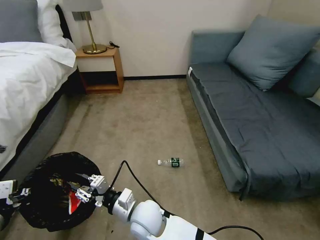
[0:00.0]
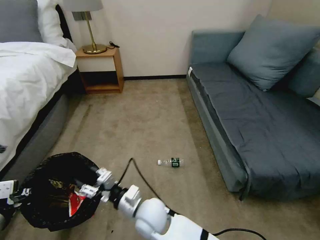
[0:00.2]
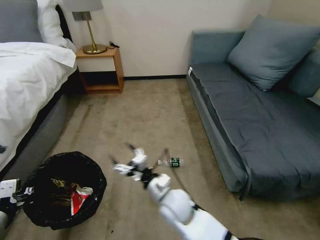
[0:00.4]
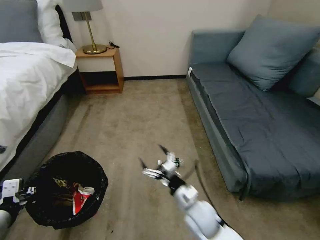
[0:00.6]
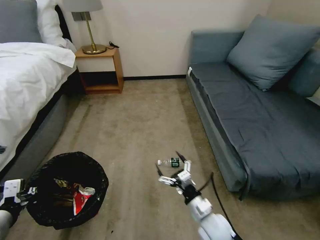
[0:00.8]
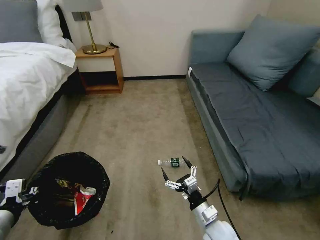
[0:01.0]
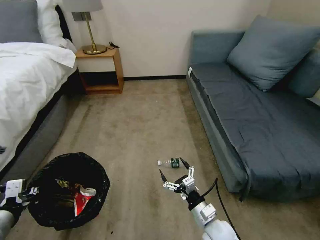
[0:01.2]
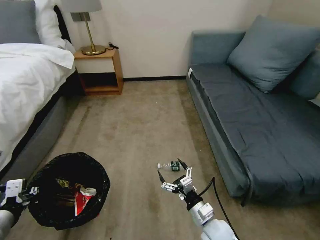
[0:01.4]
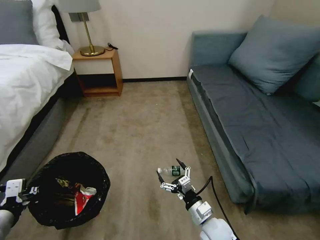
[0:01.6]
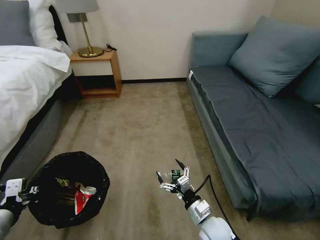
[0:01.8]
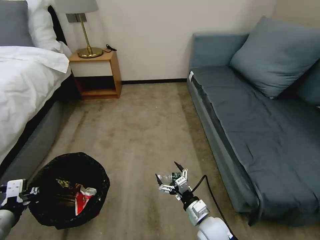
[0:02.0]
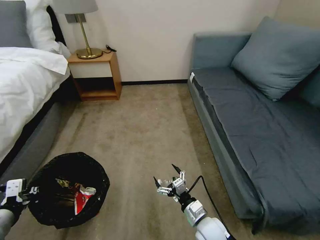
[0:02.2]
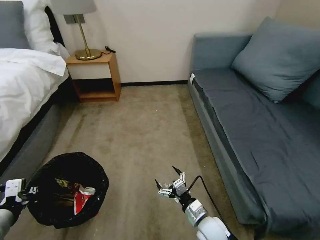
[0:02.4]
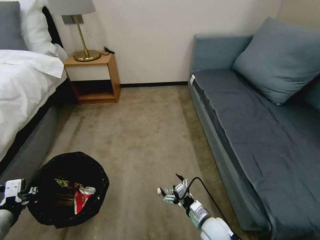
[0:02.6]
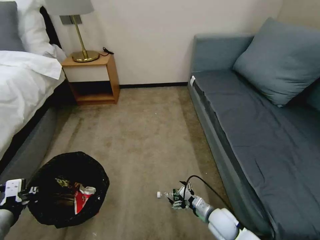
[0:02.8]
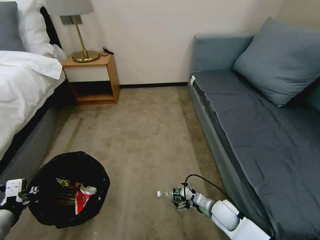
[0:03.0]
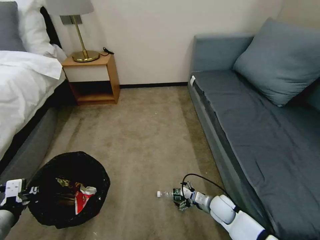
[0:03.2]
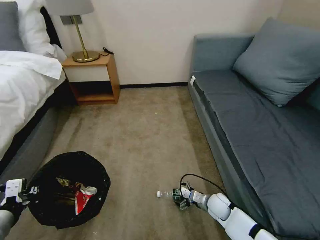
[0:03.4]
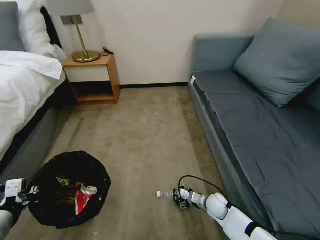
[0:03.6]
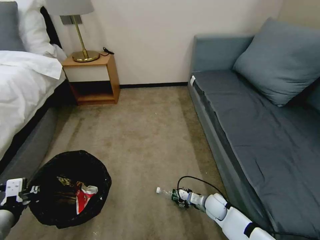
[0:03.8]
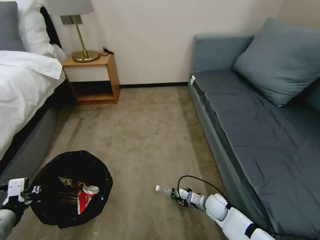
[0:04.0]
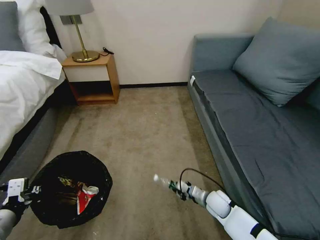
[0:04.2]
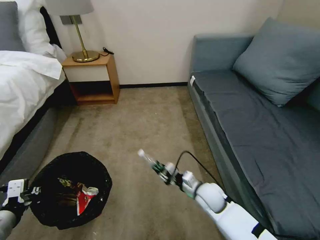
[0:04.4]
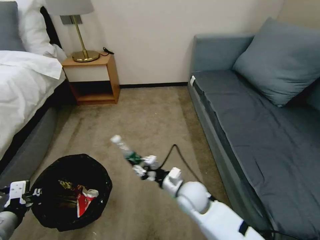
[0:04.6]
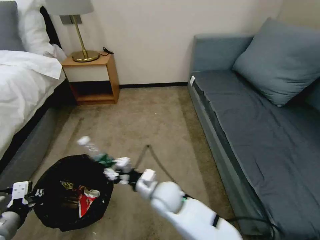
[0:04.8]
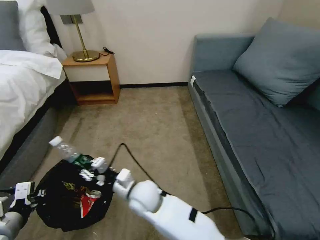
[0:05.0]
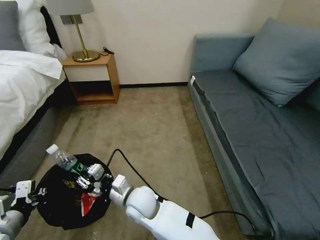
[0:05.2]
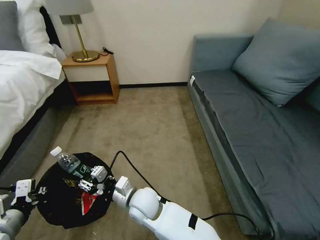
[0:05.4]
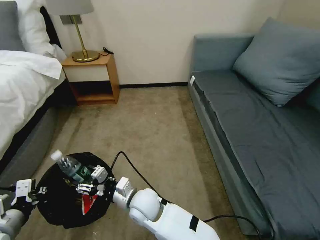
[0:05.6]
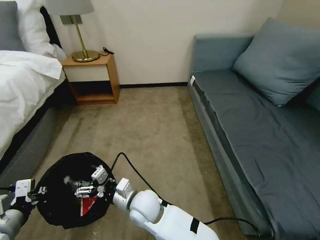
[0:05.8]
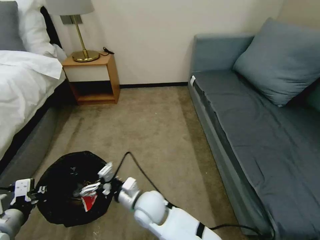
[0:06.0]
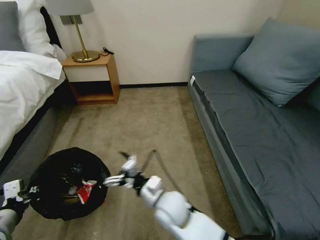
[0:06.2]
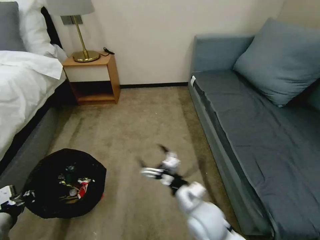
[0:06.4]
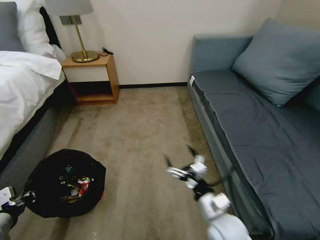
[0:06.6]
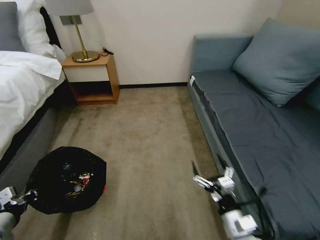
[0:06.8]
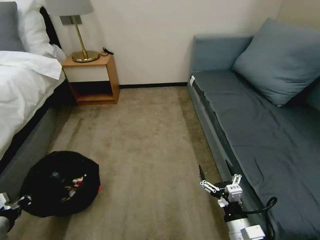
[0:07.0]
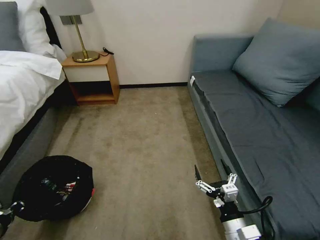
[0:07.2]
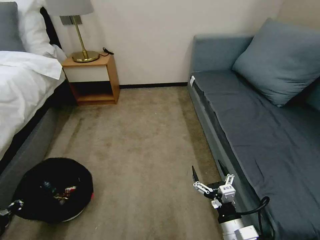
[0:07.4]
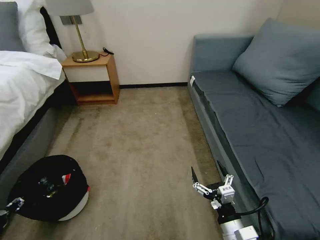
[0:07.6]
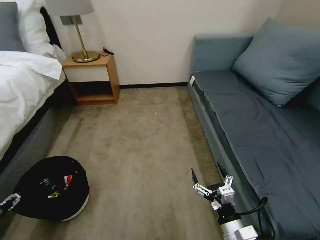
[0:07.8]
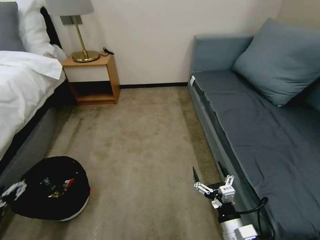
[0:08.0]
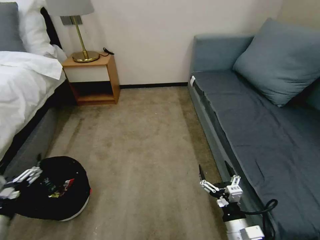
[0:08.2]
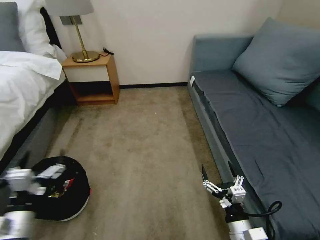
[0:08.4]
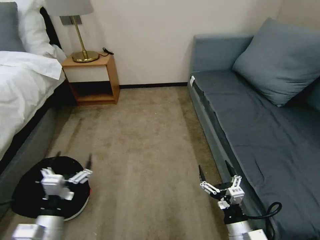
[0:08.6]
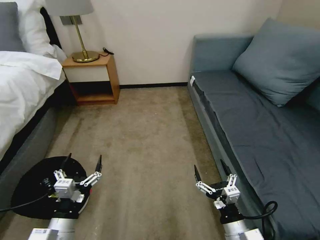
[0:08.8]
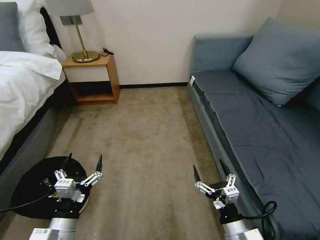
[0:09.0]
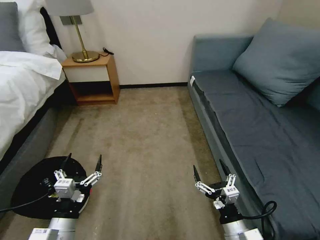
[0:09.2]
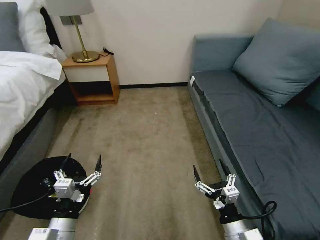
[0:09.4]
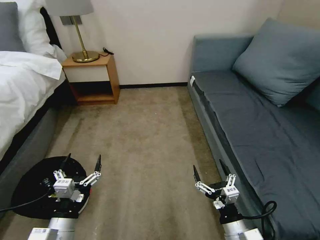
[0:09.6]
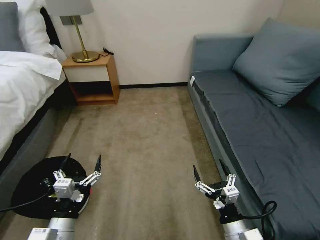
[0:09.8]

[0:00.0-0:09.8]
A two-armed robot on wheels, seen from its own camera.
Task of the whole recording: Pick up the trash bin, then pick up the garbage on the floor and place it into the trash bin.
0:00.0 to 0:01.4: The right gripper is displaced to the right by some 25 cm, and opens its fingers.
0:01.4 to 0:02.8: The right gripper shifts by about 5 cm.
0:02.8 to 0:04.2: The right gripper moves forward, roughly 10 cm, and closes up.
0:04.2 to 0:05.6: The right gripper heads to the left and upward, covering roughly 30 cm, and opens its fingers.
0:05.6 to 0:07.0: The right gripper heads to the right and backward, covering roughly 35 cm, and opens up, while the left gripper heads to the left and downward, covering about 10 cm.
0:07.0 to 0:08.4: The left gripper is displaced to the right by about 15 cm, and opens up.
0:08.4 to 0:09.8: The left gripper heads to the right and downward, covering about 10 cm.

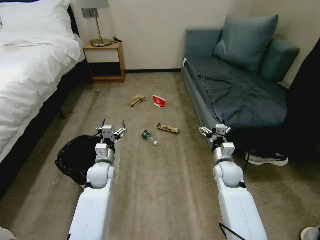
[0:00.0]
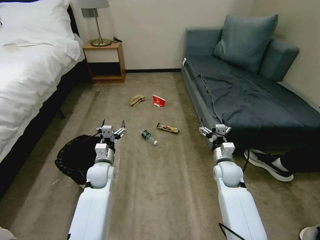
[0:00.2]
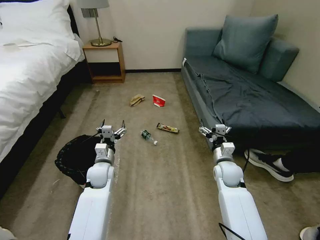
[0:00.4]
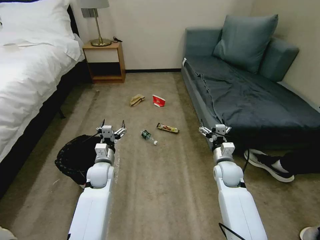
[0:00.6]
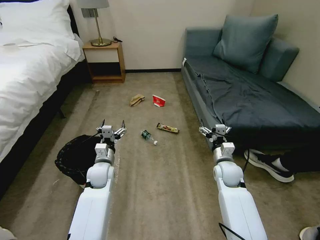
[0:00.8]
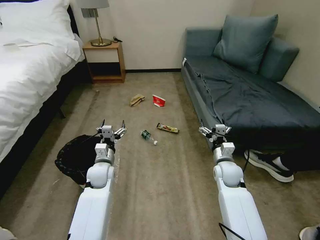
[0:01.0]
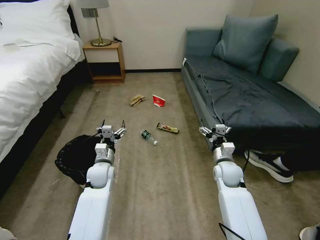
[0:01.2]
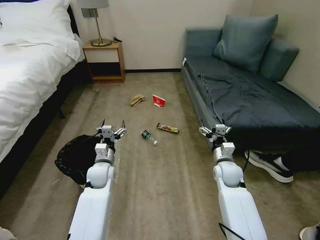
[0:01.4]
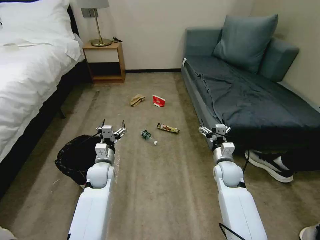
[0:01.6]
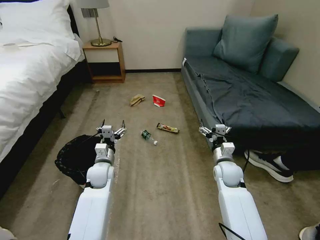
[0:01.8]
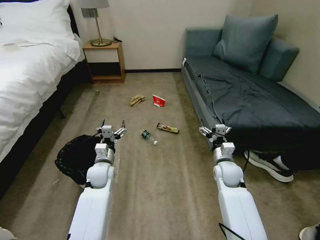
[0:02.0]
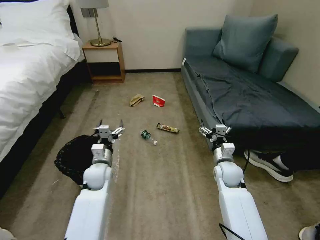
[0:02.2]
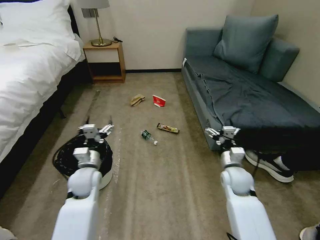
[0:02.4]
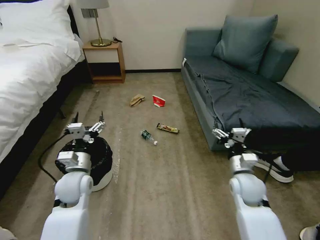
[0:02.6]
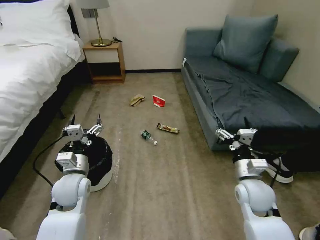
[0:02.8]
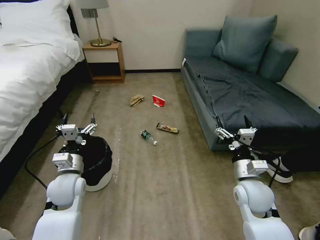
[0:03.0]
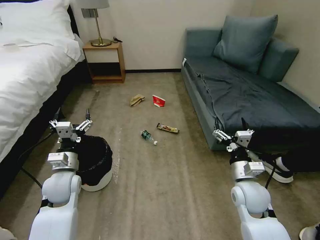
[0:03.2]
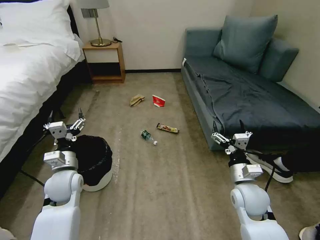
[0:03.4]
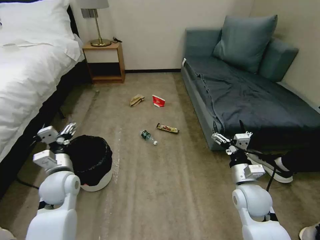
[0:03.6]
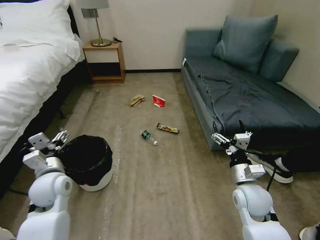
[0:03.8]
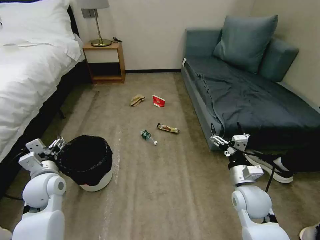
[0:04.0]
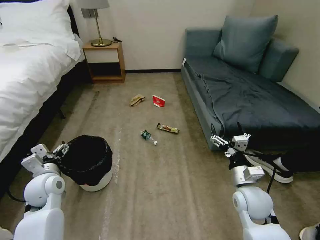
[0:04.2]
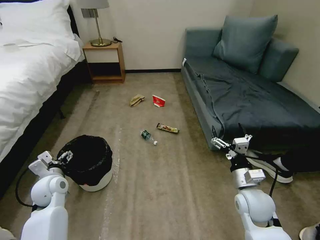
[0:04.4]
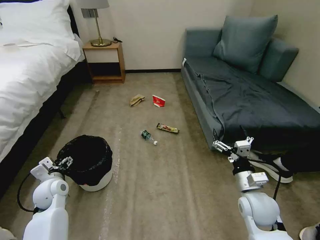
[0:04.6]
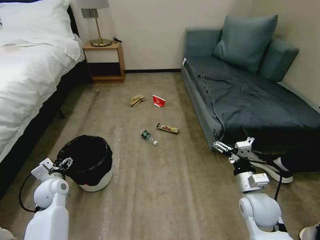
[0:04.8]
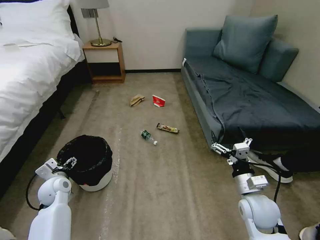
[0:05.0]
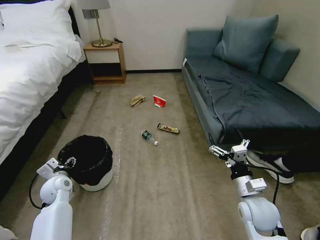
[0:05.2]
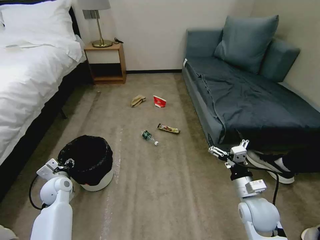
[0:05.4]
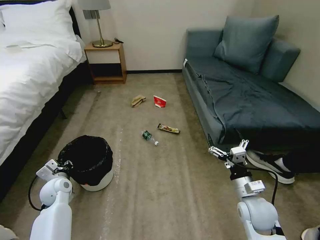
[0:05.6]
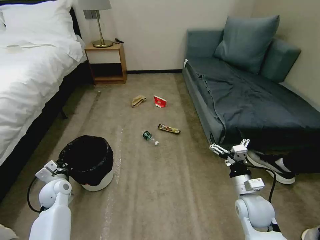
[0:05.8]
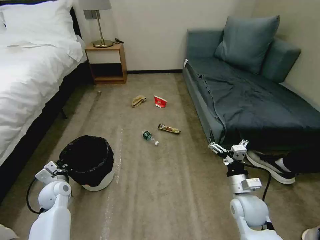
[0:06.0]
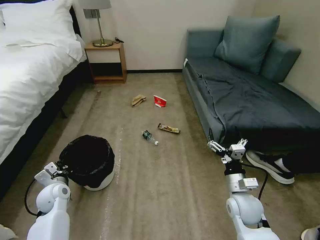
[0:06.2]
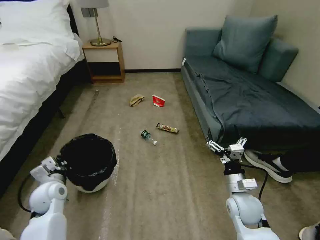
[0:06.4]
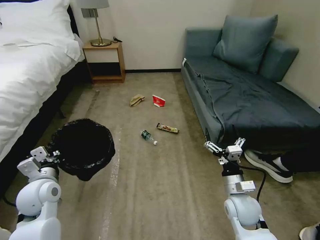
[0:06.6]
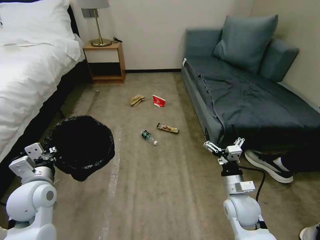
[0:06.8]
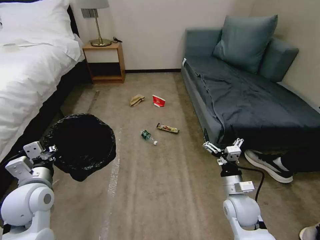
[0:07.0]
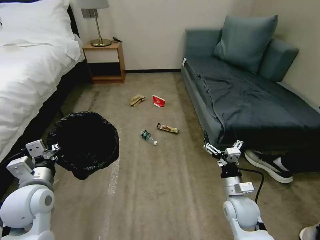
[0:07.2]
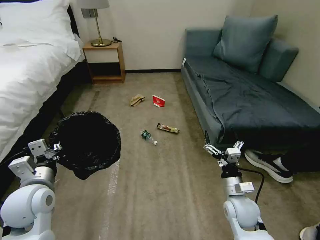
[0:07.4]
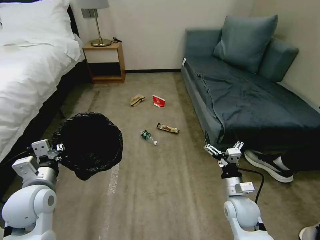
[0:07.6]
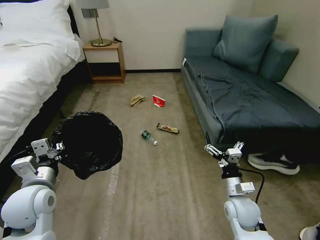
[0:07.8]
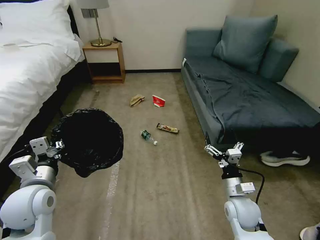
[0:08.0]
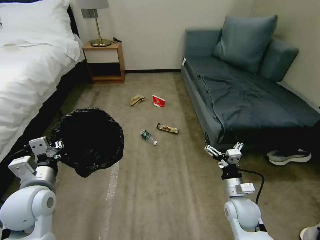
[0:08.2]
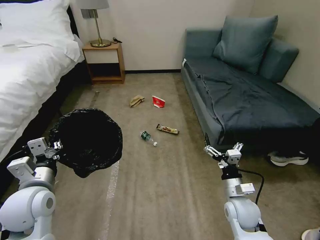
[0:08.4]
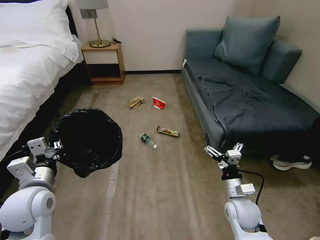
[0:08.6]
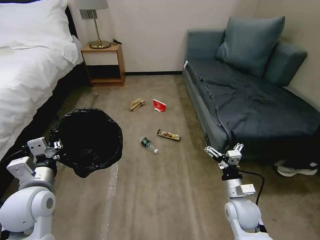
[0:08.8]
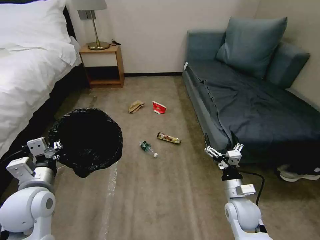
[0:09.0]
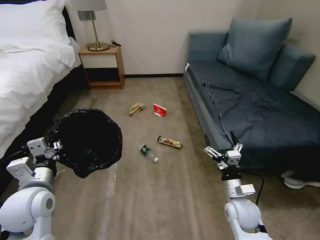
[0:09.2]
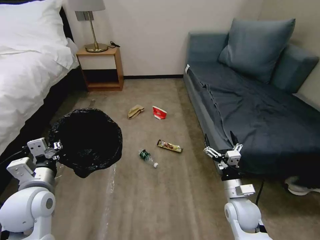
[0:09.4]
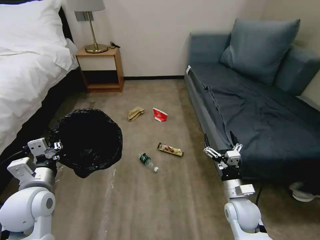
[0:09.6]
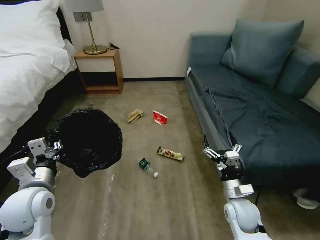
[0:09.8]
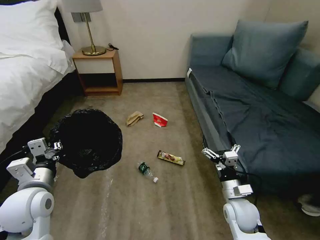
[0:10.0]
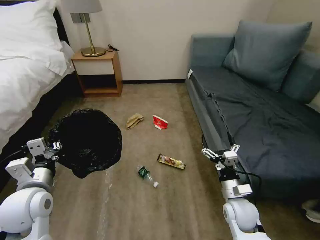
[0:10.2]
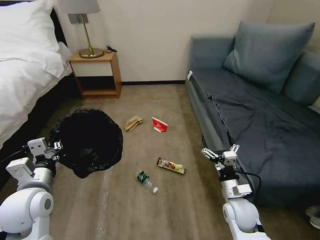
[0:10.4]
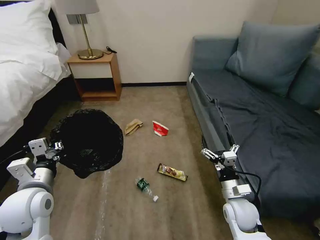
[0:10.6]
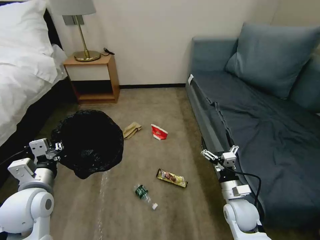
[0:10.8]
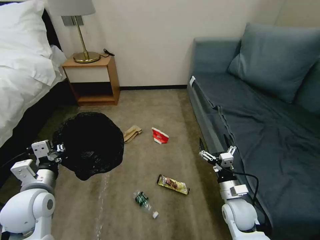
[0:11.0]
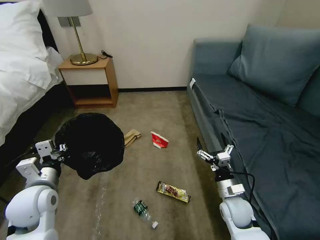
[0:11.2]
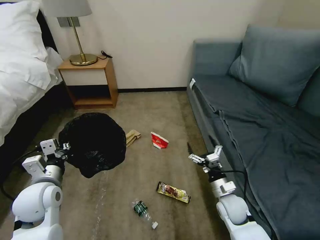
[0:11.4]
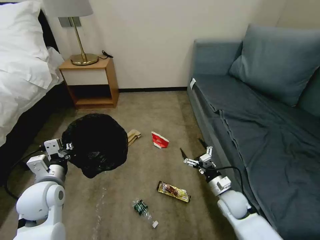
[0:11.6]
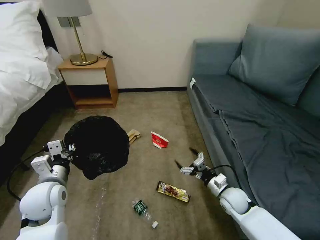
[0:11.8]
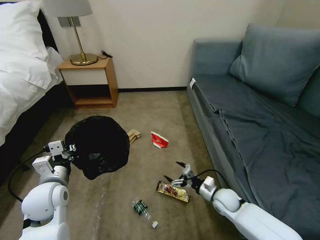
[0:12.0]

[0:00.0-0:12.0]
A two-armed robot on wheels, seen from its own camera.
Task of the whole recording: Pick up the trash bin, then pick up the garbage on the floor and place it into the trash bin.
0:01.6 to 0:03.0: The right gripper moves backward and upward, approximately 10 cm; the left gripper shifts some 15 cm backward, upward and to the left.
0:03.0 to 0:04.4: The left gripper heads to the left, covering roughly 10 cm.
0:04.4 to 0:06.0: The left gripper shifts about 5 cm downward, and closes up.
0:06.0 to 0:07.6: The left gripper shifts approximately 20 cm upward and backward.
0:10.4 to 0:12.0: The left gripper changes place by about 5 cm, while the right gripper goes about 10 cm downward and forward.
